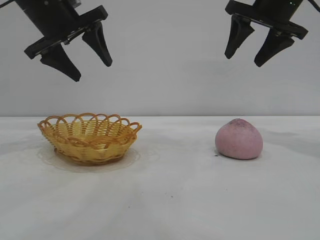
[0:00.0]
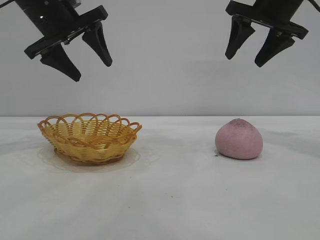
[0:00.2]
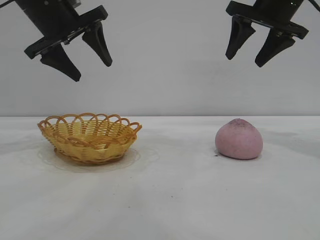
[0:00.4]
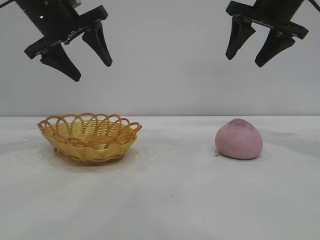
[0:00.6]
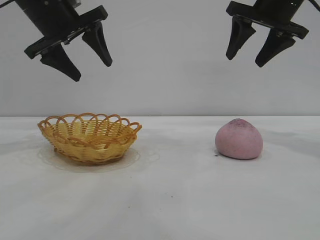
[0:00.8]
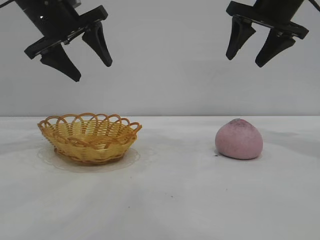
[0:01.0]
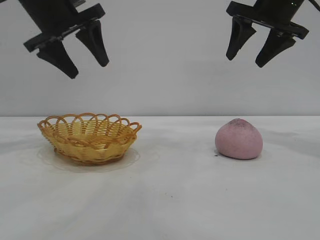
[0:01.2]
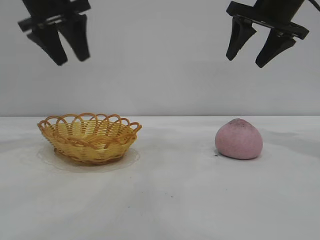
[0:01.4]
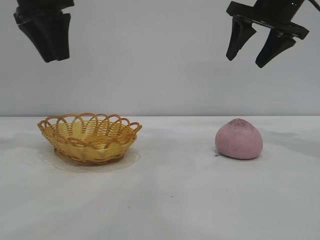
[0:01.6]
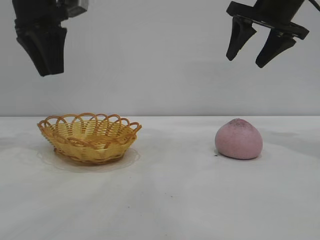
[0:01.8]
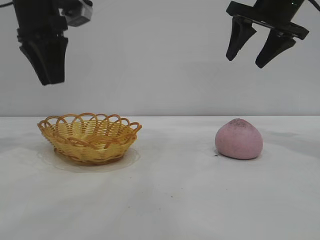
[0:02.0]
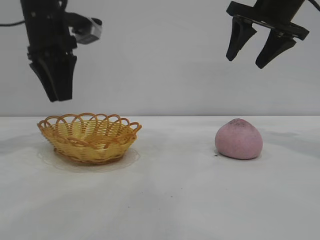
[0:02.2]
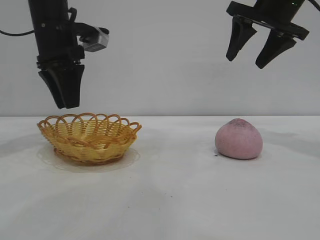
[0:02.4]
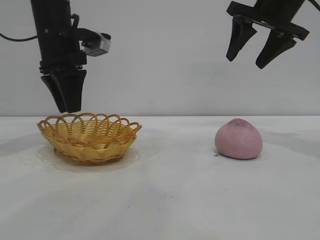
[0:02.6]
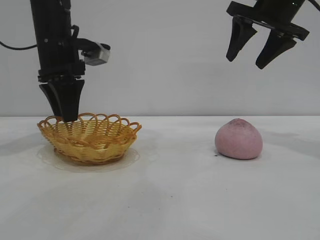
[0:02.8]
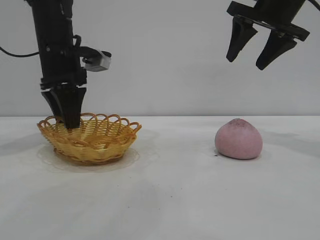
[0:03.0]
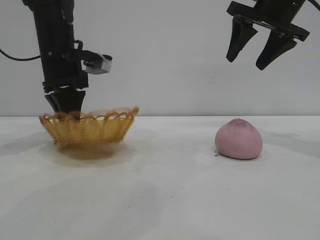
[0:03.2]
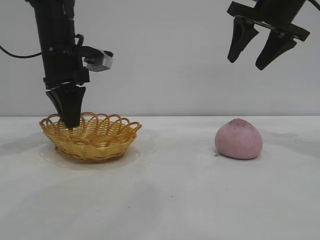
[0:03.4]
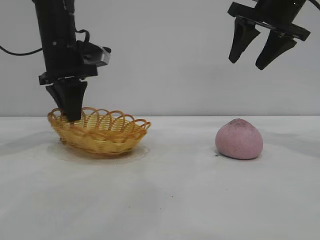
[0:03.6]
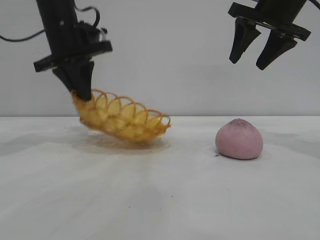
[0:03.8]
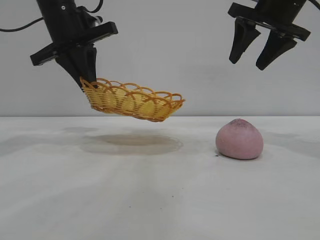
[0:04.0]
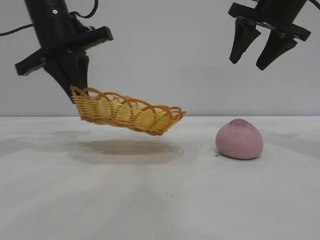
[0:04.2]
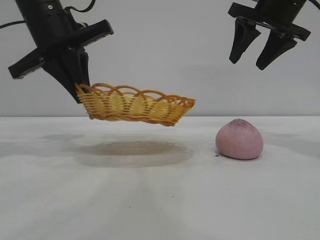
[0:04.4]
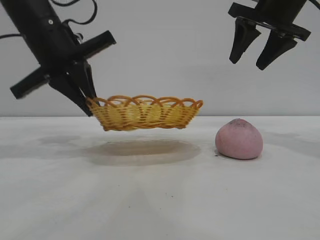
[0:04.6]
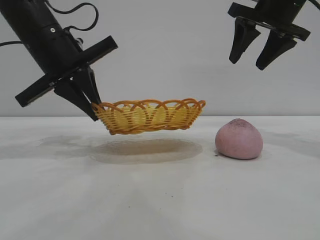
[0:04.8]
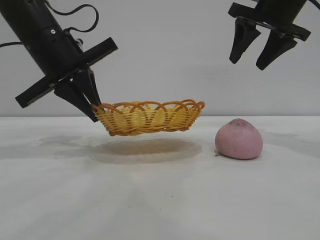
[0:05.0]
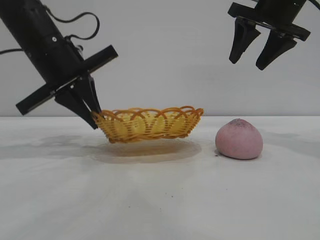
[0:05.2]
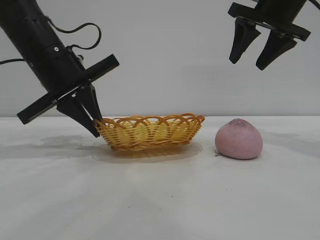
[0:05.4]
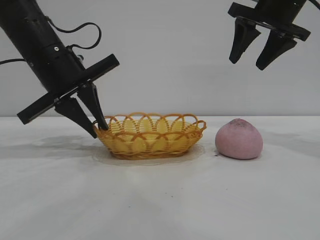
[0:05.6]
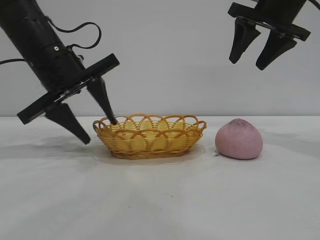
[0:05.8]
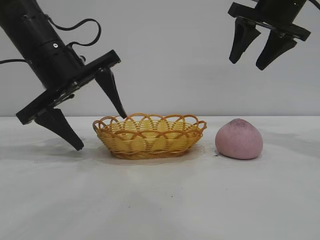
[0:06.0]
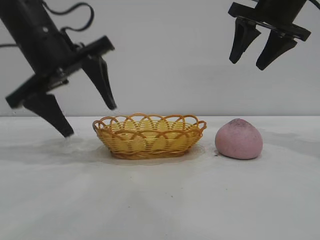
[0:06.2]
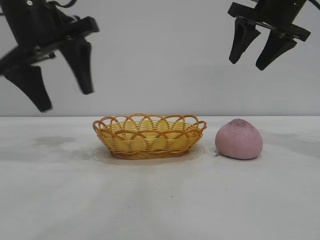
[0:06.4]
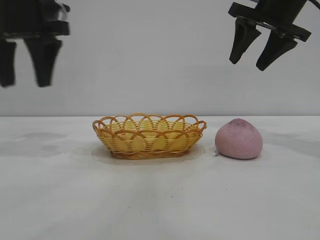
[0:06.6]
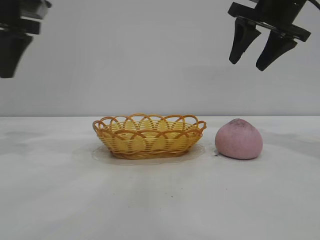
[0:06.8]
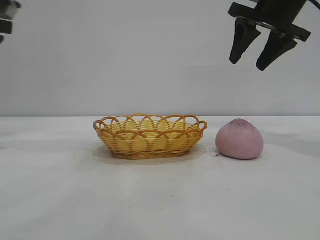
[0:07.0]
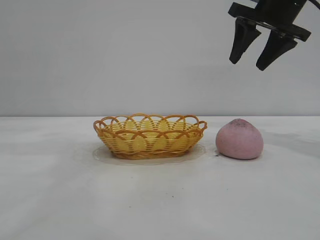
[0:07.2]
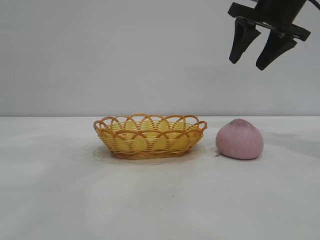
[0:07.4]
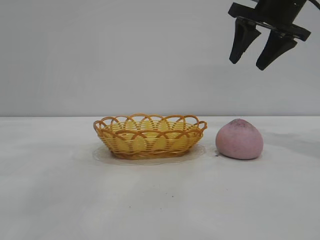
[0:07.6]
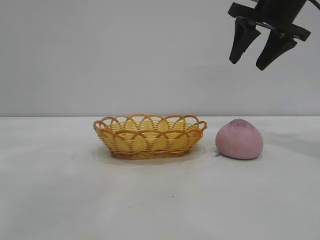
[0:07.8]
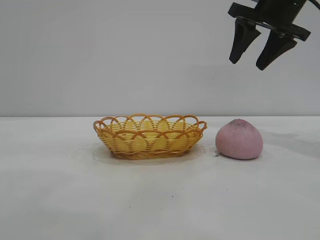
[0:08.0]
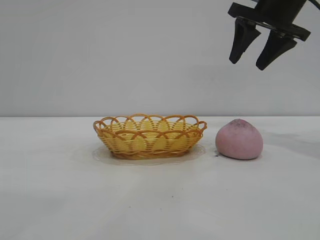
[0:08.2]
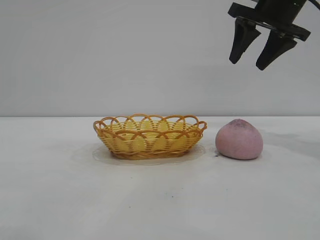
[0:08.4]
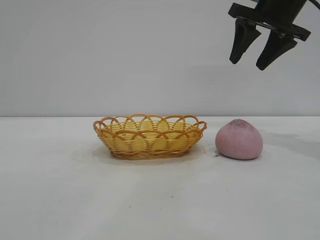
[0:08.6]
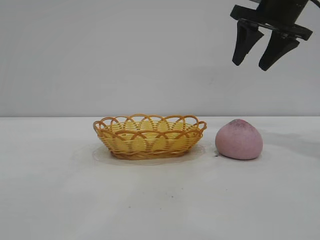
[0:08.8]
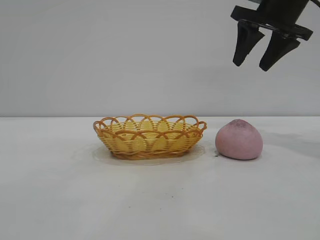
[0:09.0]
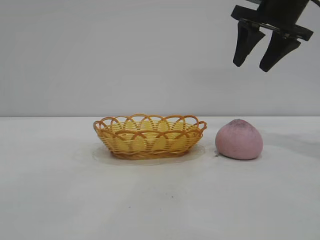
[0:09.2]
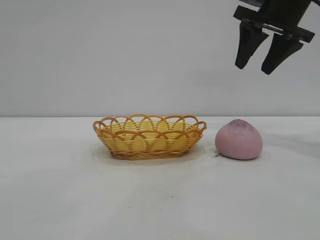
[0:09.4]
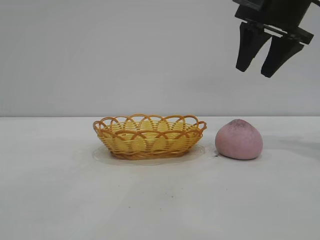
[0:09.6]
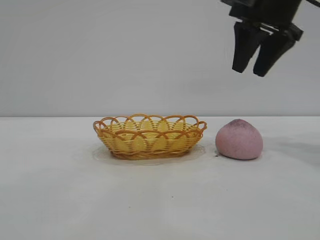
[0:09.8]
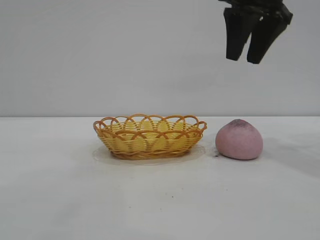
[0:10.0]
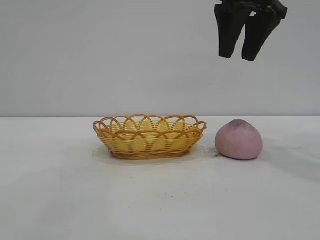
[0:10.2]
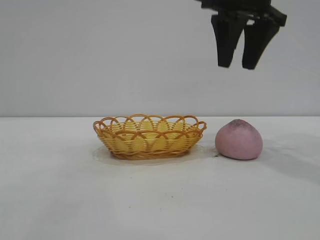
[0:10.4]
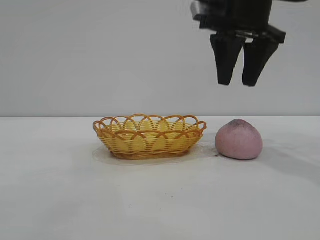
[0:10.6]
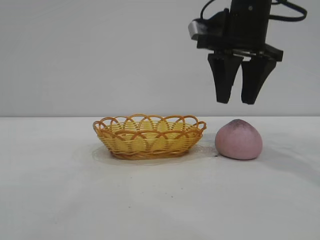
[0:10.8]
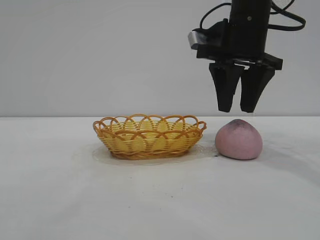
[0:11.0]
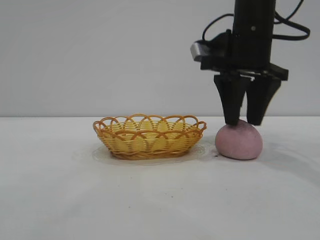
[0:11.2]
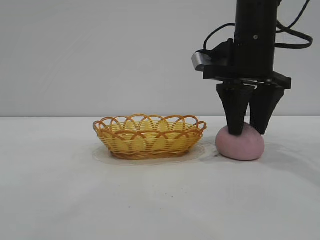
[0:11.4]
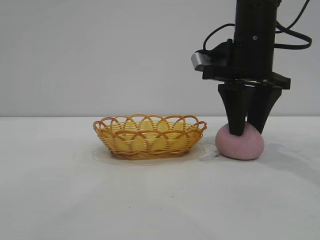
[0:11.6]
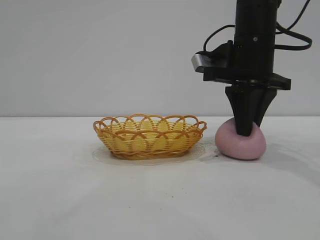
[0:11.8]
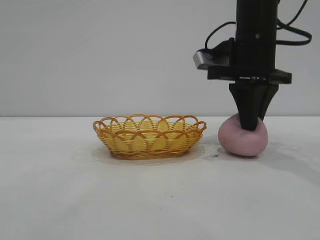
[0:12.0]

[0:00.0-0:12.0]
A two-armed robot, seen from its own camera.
Task of the whole recording: pick up the peach and put it into the basket.
Step, 0:00.0 to 0:06.2: Move the basket to the center of view.

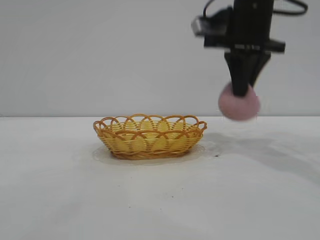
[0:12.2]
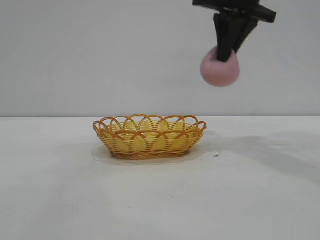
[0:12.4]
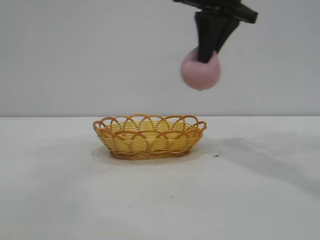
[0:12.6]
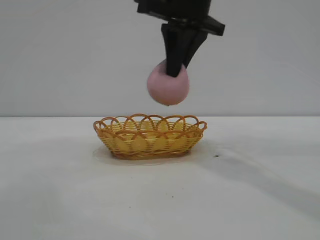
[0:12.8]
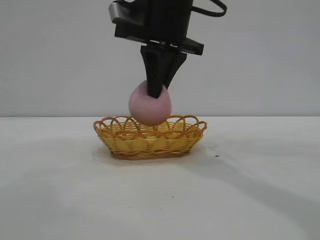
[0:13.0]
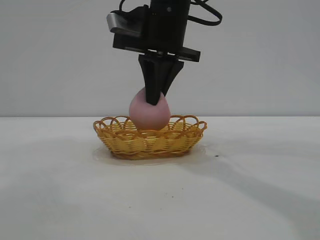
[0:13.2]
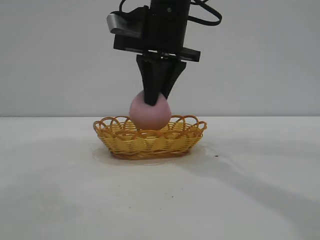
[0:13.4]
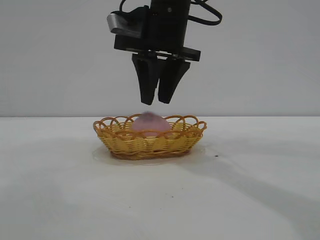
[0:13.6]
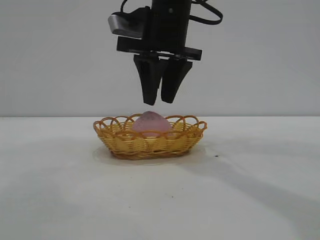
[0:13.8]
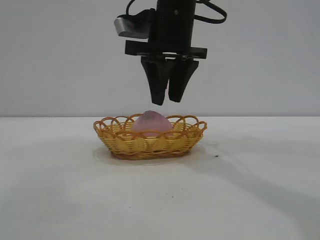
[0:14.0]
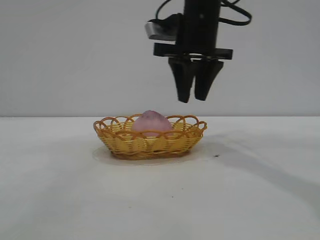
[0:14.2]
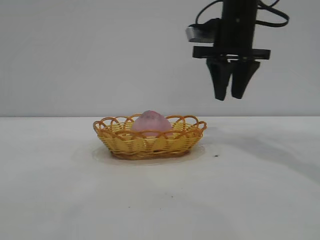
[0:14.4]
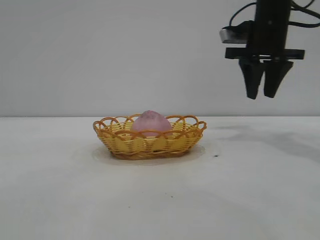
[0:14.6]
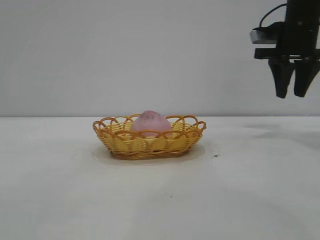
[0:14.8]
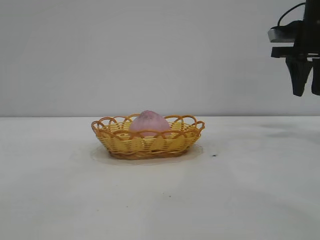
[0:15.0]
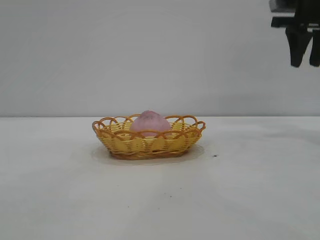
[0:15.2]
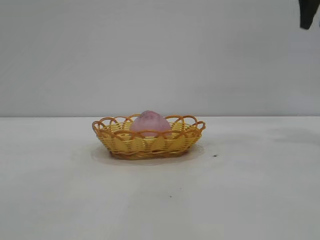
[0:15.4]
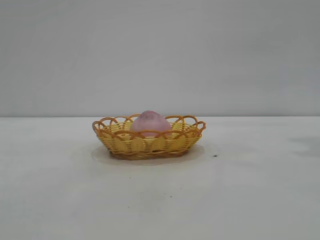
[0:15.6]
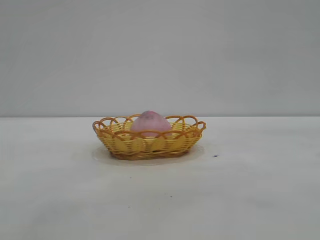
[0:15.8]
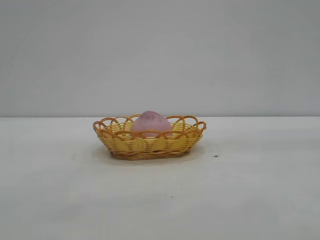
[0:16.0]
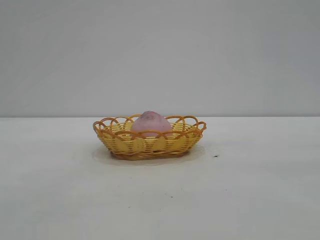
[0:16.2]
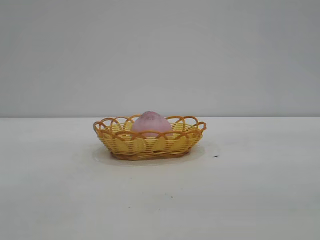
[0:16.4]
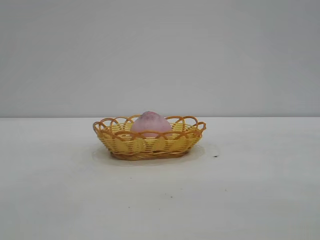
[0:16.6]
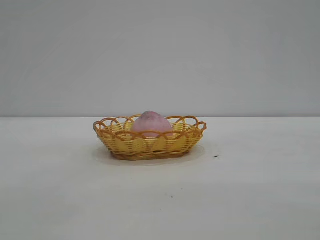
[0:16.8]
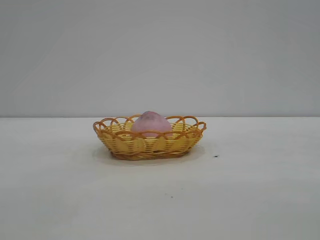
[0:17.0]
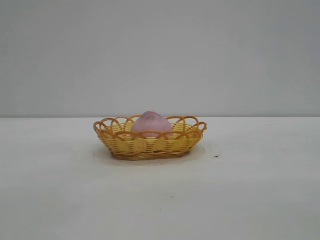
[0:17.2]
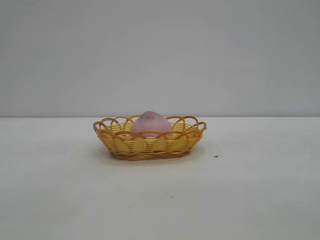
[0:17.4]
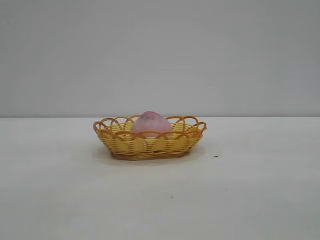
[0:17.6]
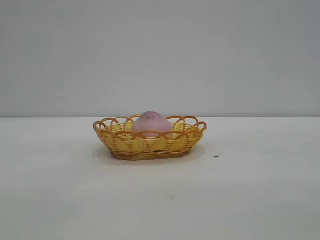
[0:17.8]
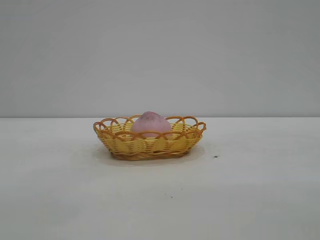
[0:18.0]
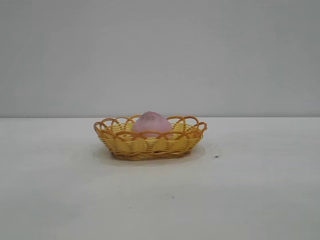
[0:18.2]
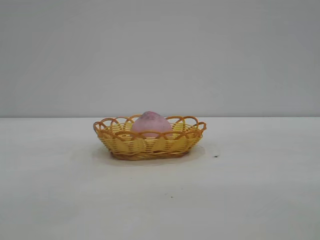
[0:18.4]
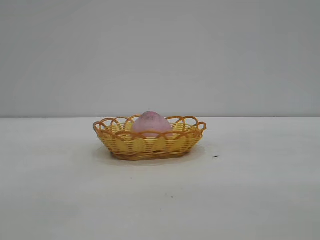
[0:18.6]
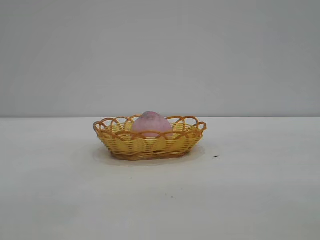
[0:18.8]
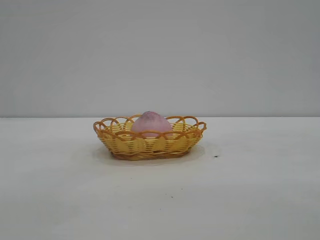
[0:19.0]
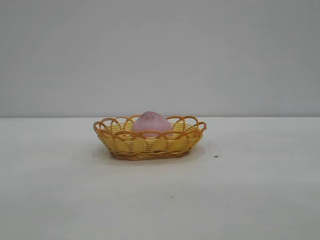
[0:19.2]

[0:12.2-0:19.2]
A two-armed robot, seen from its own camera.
Task of the whole recording: pick up the peach and put it into the basket.
Step, 0:12.4 to 0:13.8: place the peach into the basket.
